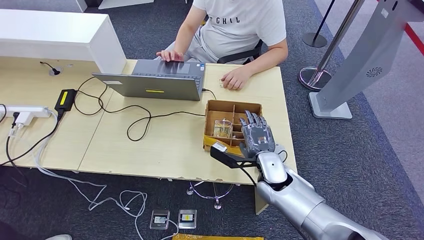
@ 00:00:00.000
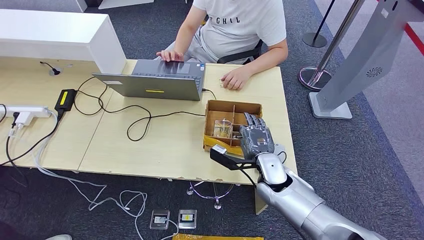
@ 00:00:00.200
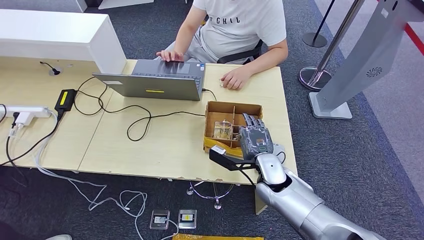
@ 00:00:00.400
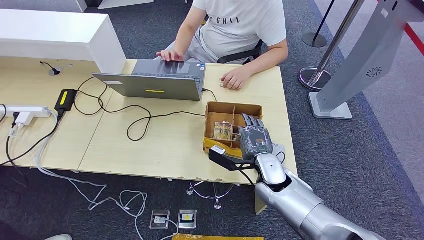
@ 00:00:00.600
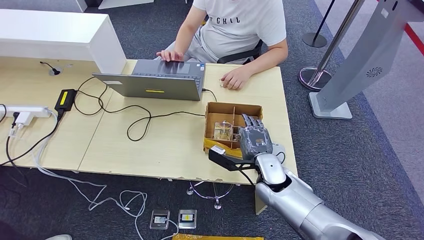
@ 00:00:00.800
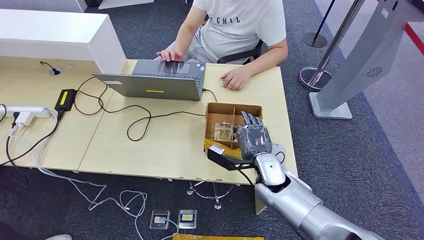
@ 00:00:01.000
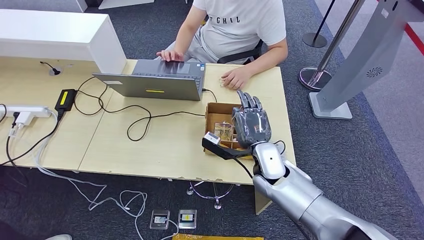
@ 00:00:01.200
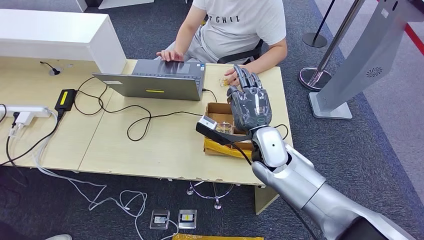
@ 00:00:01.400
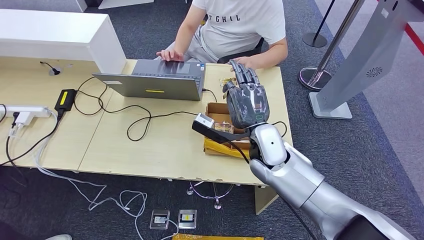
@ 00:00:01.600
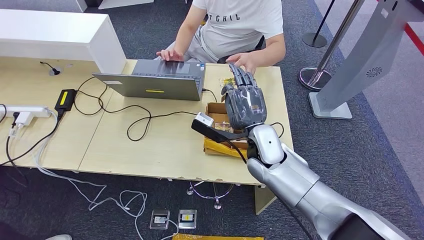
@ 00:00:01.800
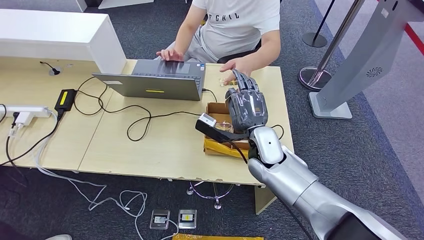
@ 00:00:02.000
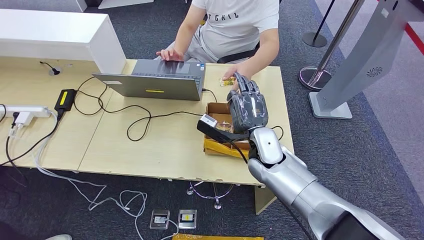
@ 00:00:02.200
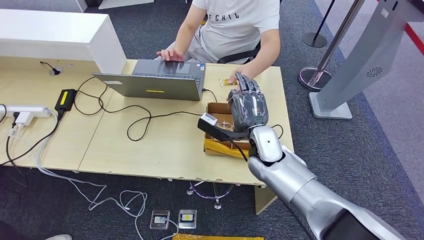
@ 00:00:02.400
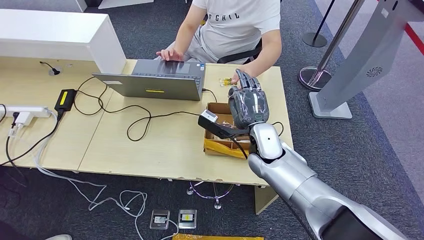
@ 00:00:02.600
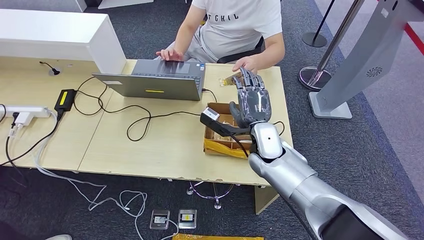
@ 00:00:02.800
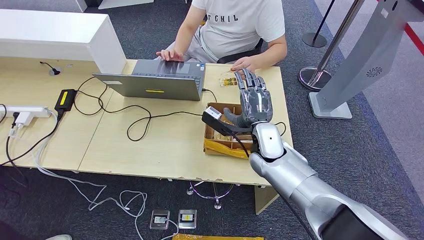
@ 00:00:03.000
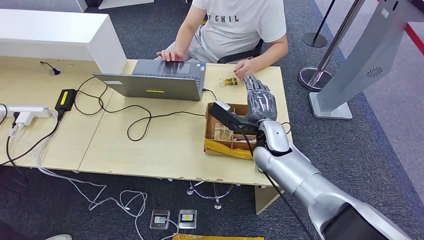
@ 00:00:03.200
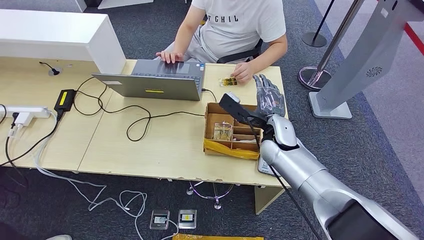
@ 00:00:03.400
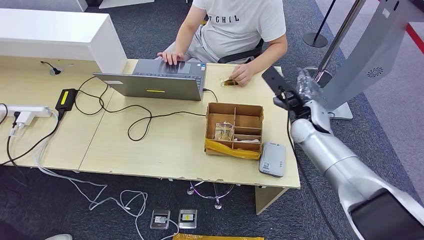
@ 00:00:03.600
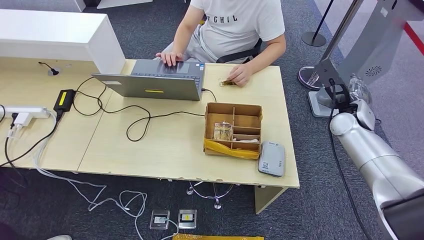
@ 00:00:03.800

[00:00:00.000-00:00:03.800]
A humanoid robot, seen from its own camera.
Step, 00:00:00.000 to 00:00:01.800: Pick up the room key from the key card box.
Step, 00:00:02.000 to 00:00:03.800: Hand the room key to the person.
00:00:00.000 to 00:00:01.200: There are only small adjustments of the hands.
00:00:01.200 to 00:00:02.600: The right hand shifts by roughly 5 cm.
00:00:02.600 to 00:00:03.800: The right hand shifts approximately 20 cm to the right.
